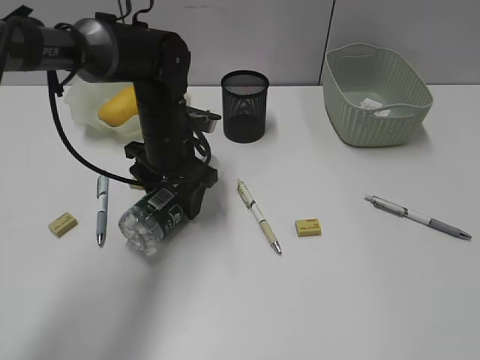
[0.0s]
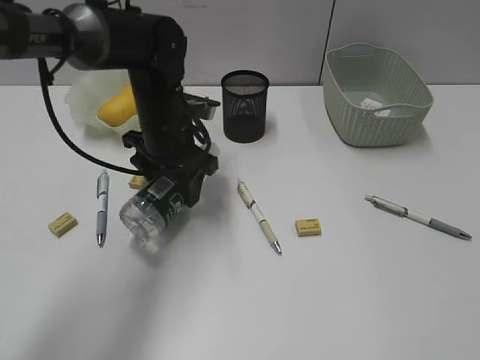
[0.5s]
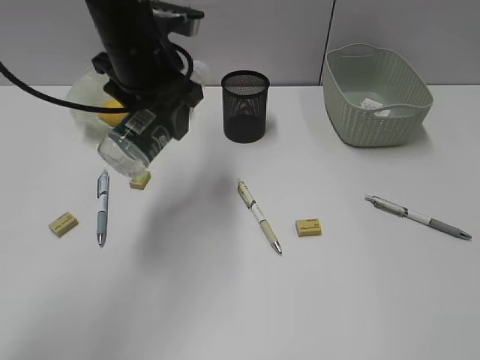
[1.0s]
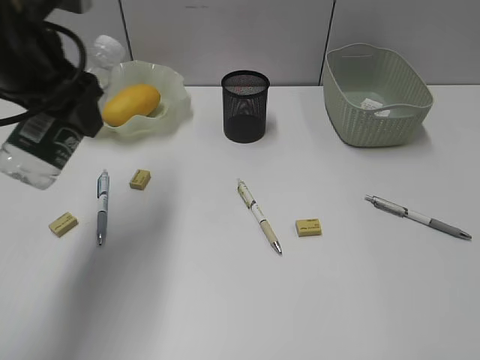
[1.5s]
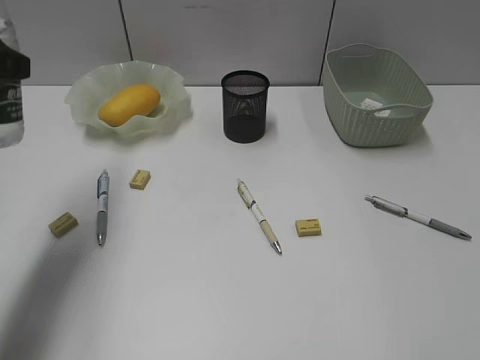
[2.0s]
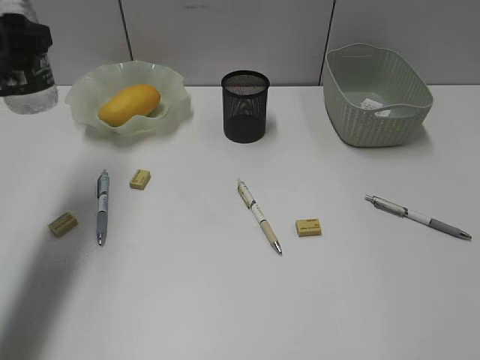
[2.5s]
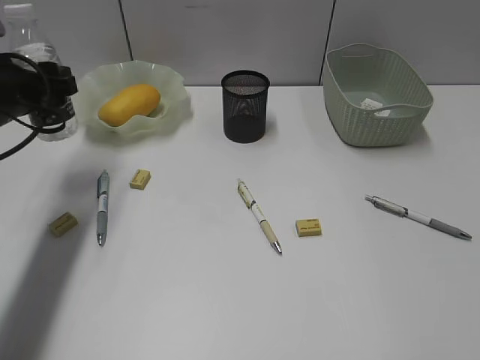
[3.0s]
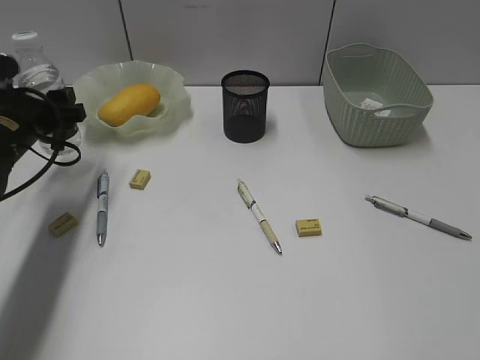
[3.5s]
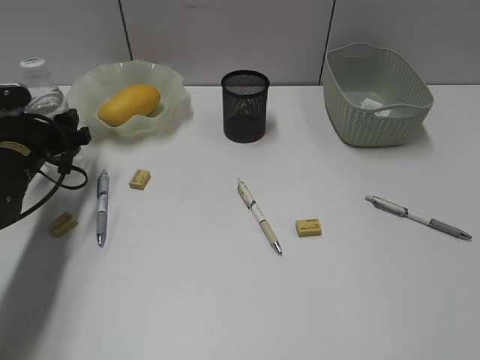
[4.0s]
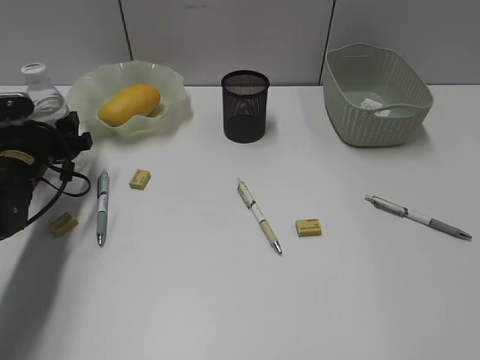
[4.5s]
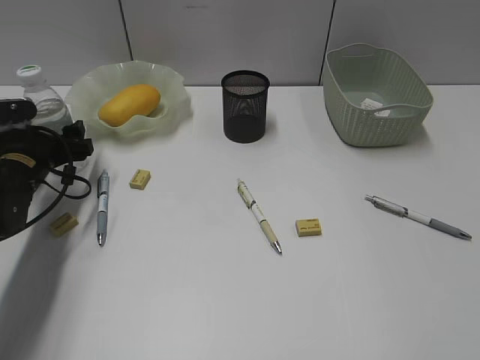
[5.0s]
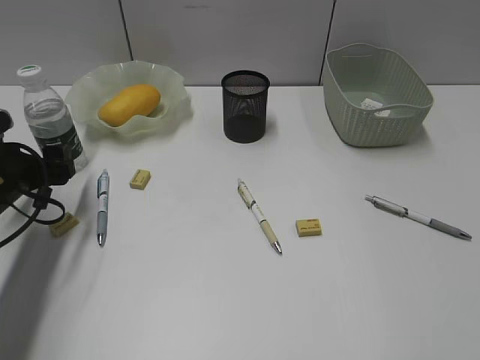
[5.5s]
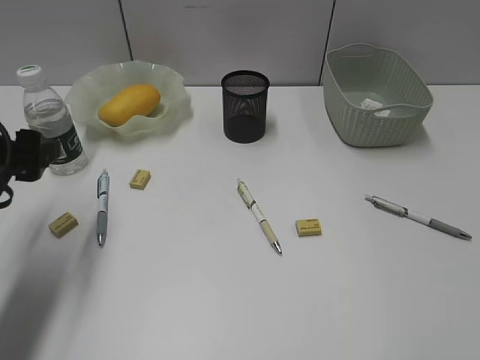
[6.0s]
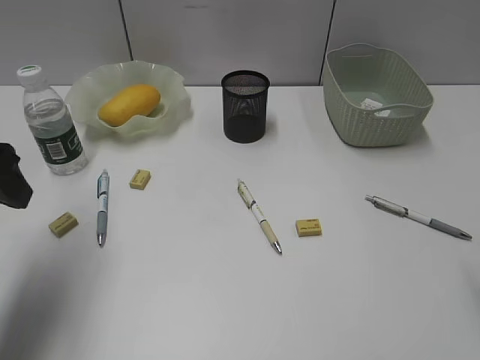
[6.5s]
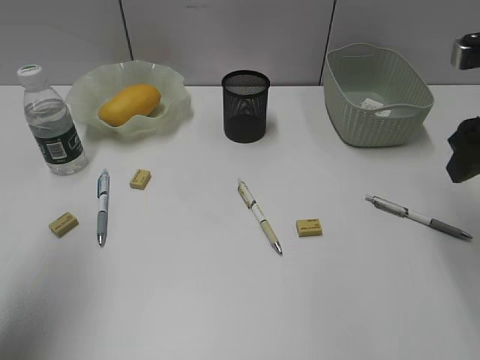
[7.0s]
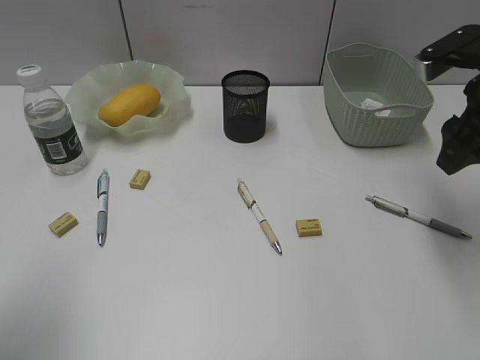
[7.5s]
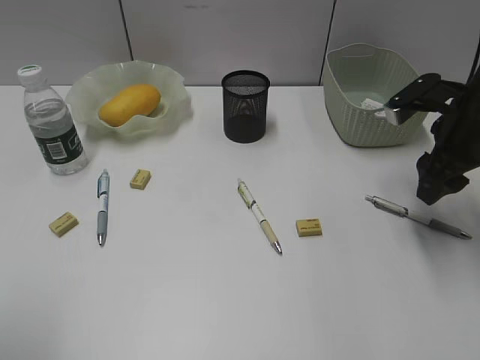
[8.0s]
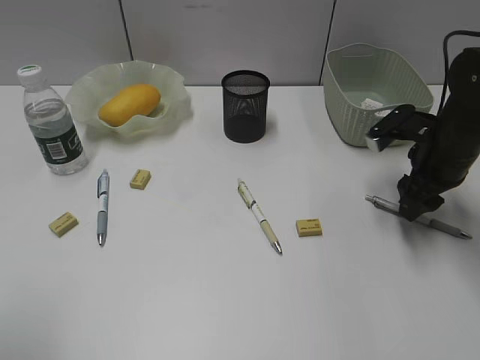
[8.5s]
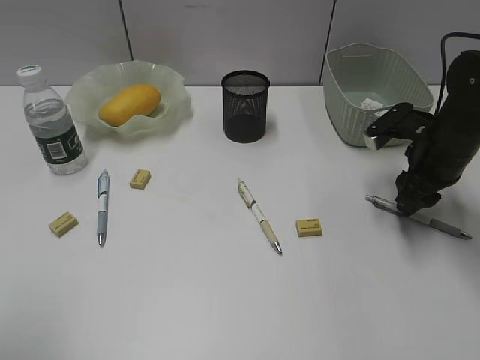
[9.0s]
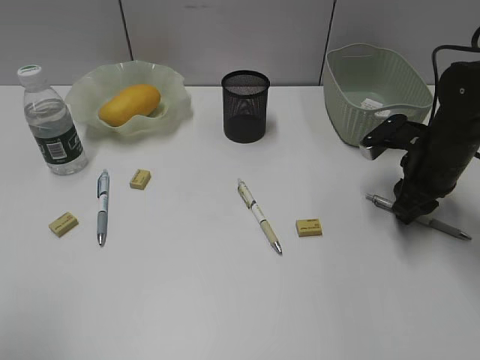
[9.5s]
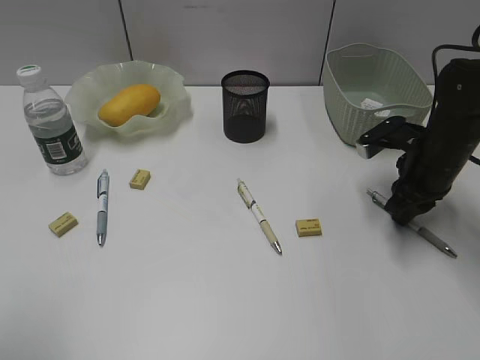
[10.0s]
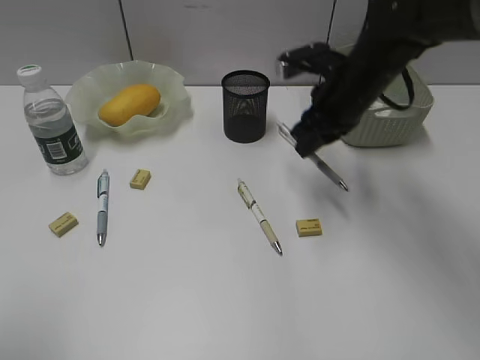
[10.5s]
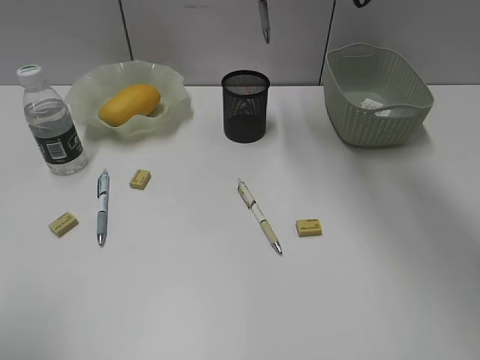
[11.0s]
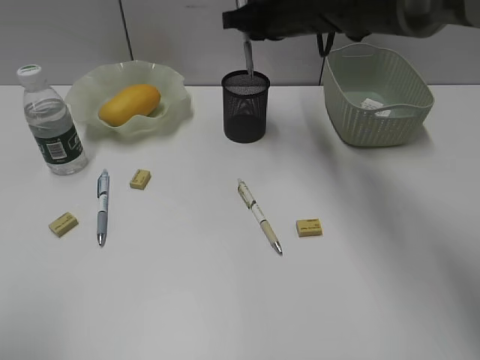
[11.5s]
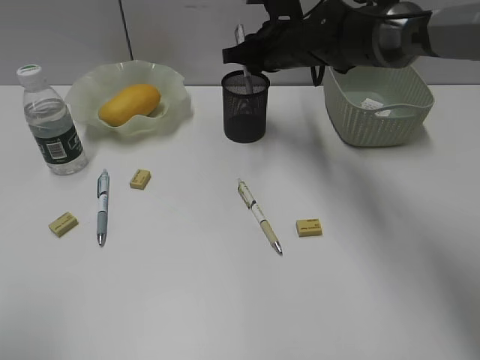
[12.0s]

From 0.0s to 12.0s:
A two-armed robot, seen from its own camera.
Step, from 0.5s to 5.0s: Stand the bottle with left gripper.
Step, from 5.5s to 9.5s: Grasp the gray pen with right gripper.
From 0.0s to 2.0s: The left gripper goes some 30 cm to the left, upward and backward.
From 2.0s to 4.0s: The left gripper travels downward and forward by some 20 cm.
From 4.0s to 6.0s: The left gripper goes some 15 cm backward and upward.
From 6.0s to 8.0s: The right gripper goes approximately 35 cm forward; the left gripper moves backward and upward, some 20 cm.
From 8.0s to 10.0s: The right gripper is displaced downward by about 5 cm, and closes its fingers.
From 10.0s to 12.0s: The right gripper shifts about 20 cm to the left, forward and upward.

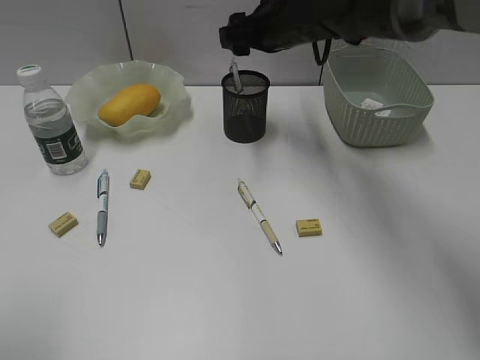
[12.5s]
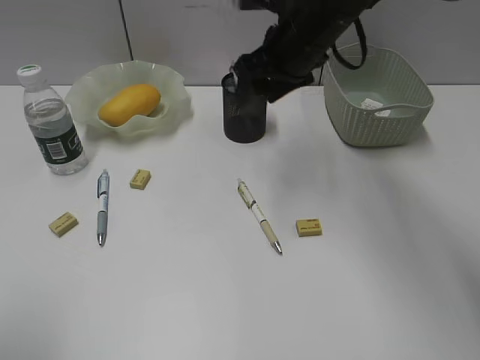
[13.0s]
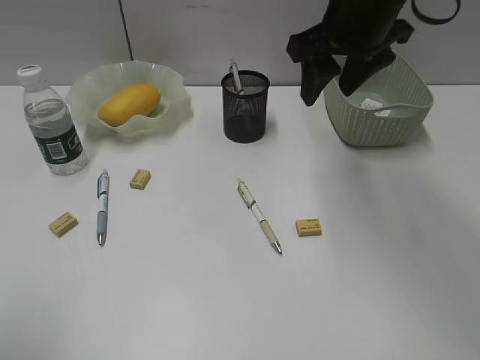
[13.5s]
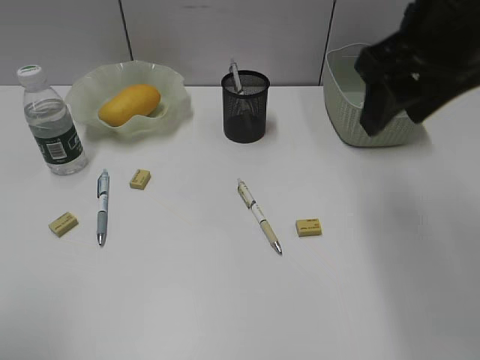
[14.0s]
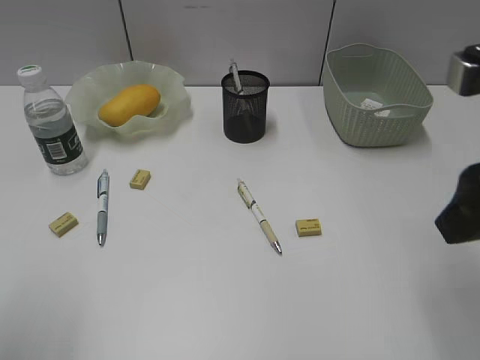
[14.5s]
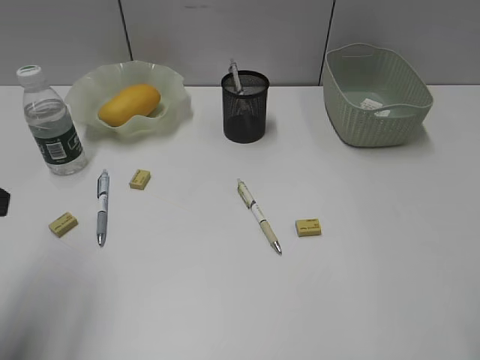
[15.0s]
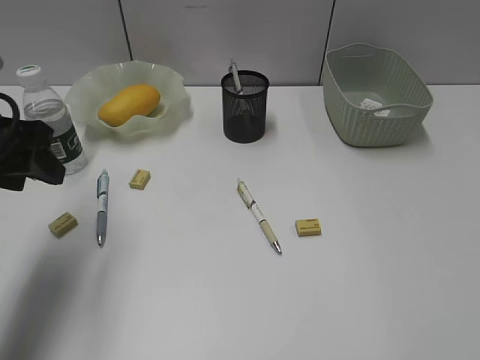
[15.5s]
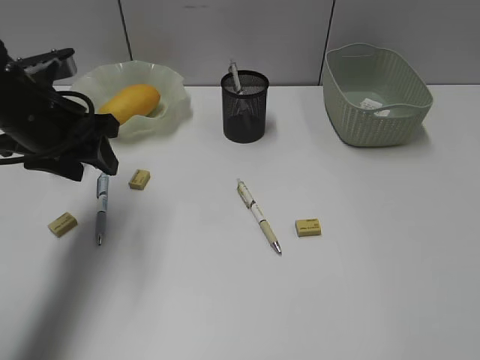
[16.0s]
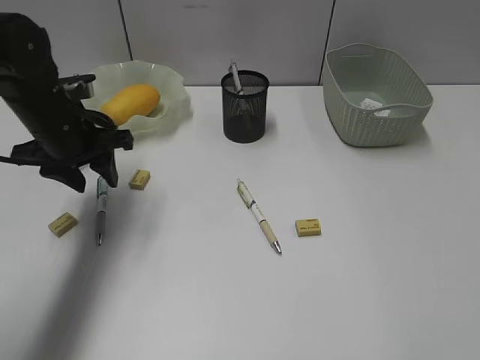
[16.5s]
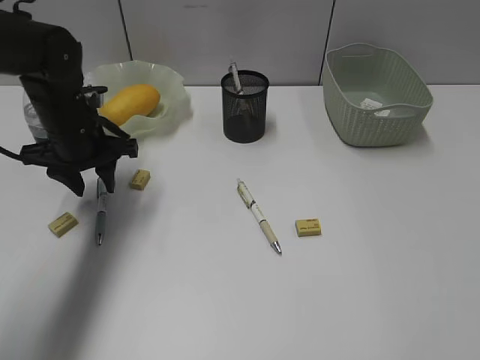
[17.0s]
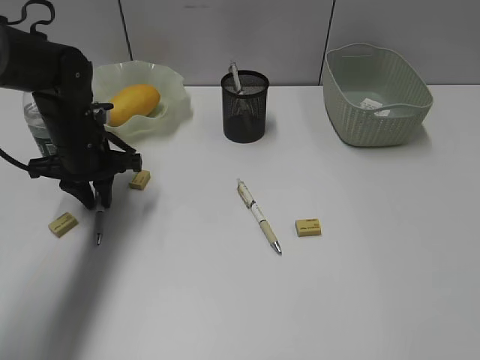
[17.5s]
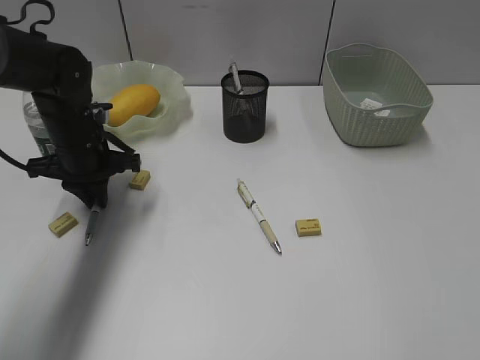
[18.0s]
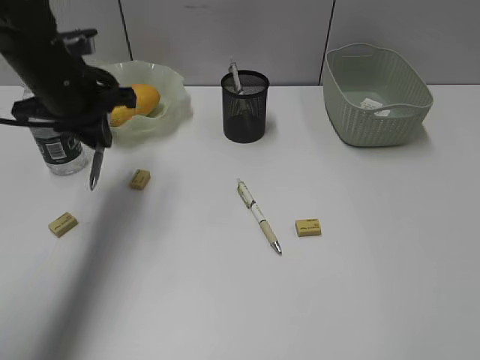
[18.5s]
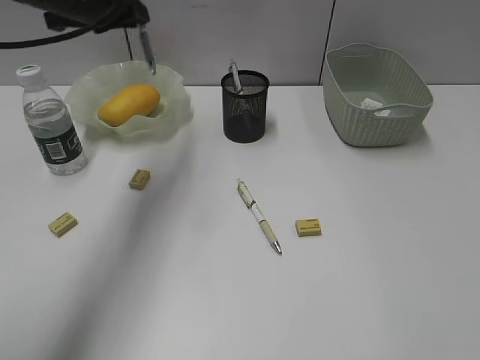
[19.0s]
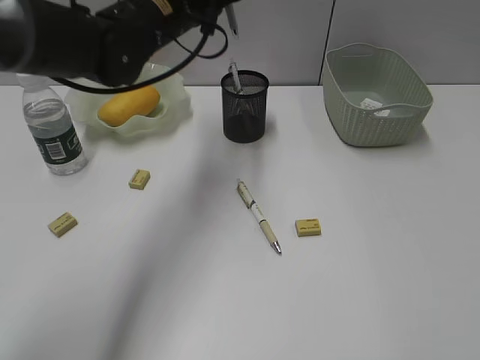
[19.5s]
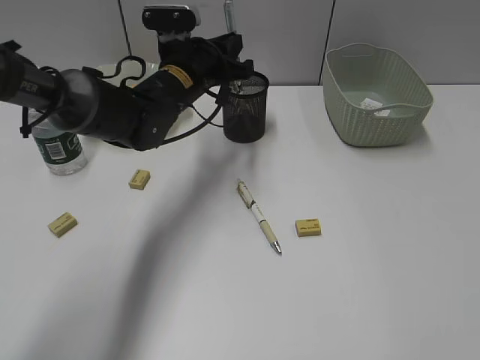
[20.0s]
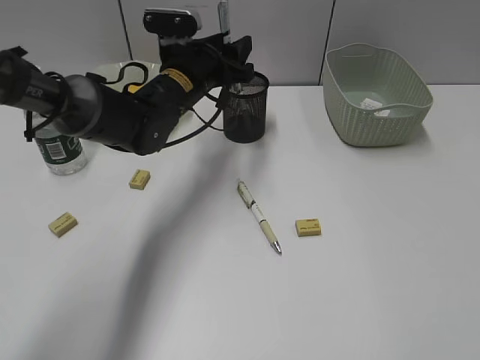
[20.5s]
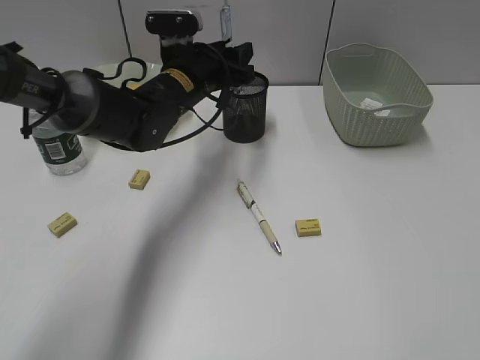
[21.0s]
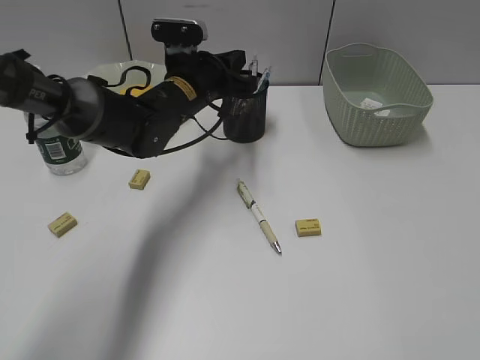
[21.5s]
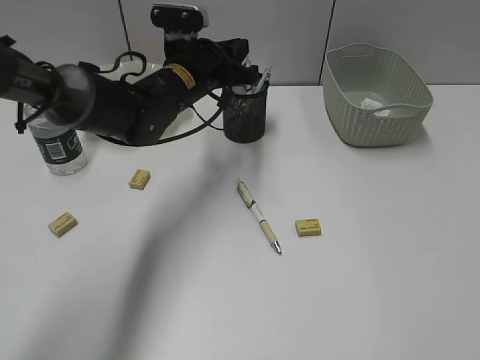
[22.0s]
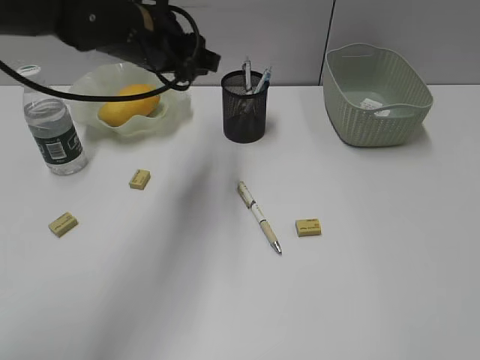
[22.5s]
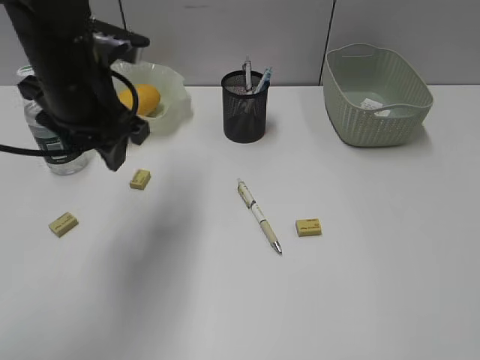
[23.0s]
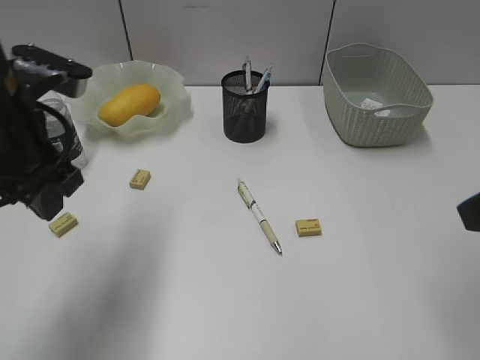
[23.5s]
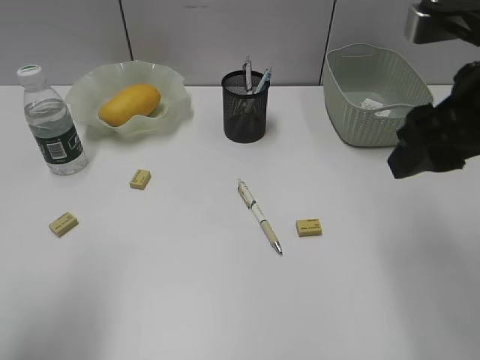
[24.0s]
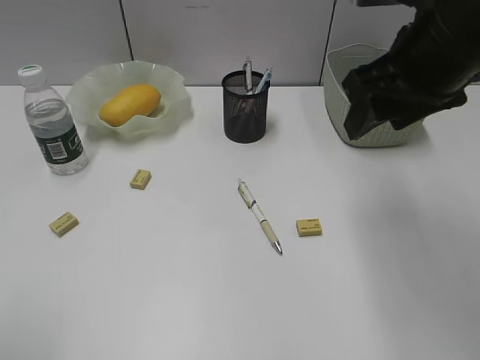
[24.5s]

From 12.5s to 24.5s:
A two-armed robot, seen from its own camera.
Step, from 12.5s to 18.0s: Grasp the blue pen with left gripper.
Step, from 18.5s to 21.5s: Place the blue pen in pen holder with left gripper.
From 12.5s to 14.5s: The right gripper goes some 35 cm backward and to the right.
From 14.5s to 16.5s: The left gripper travels forward and downward by about 30 cm; the right gripper heads backward and to the right, covering approximately 15 cm.
From 16.5s to 18.5s: The left gripper is displaced upward by some 5 cm, and closes.
From 18.5s to 20.5s: The left gripper moves to the right and downward, approximately 15 cm, and opens.
From 20.5s to 22.5s: The left gripper goes about 10 cm upward, and closes, then opens again.
From 22.5s to 24.5s: The left gripper shifts some 40 cm backward and to the left. Meanwhile the right gripper travels forward and to the left by about 25 cm.

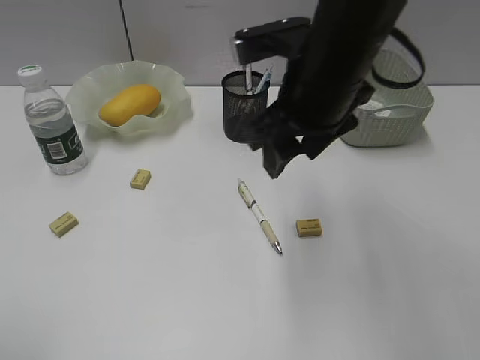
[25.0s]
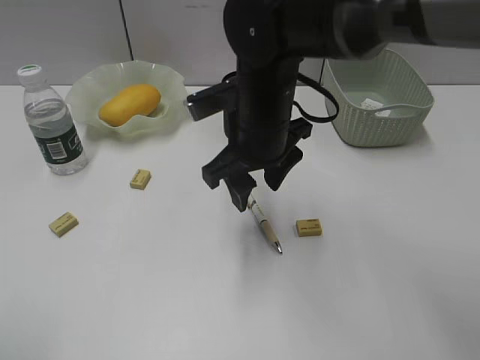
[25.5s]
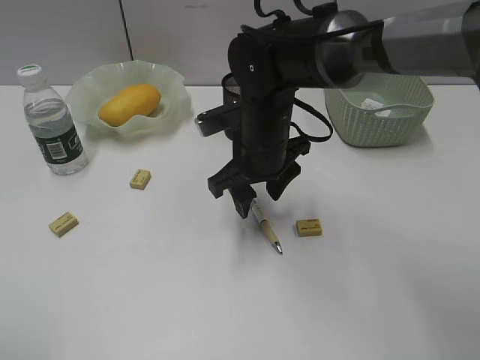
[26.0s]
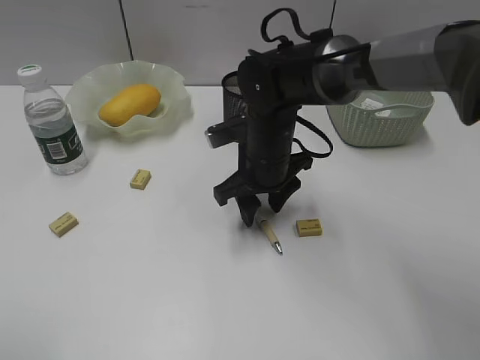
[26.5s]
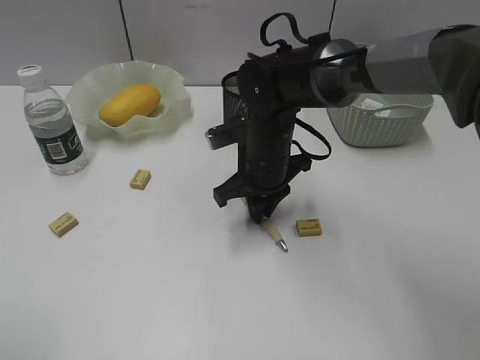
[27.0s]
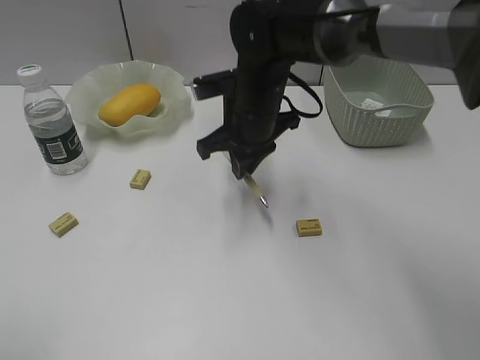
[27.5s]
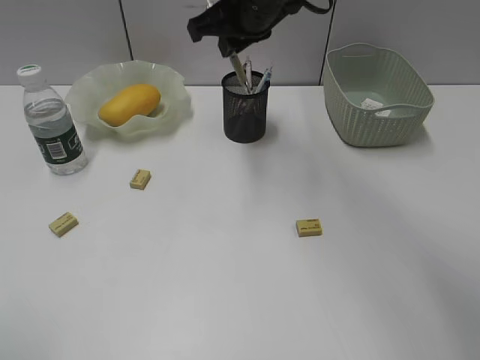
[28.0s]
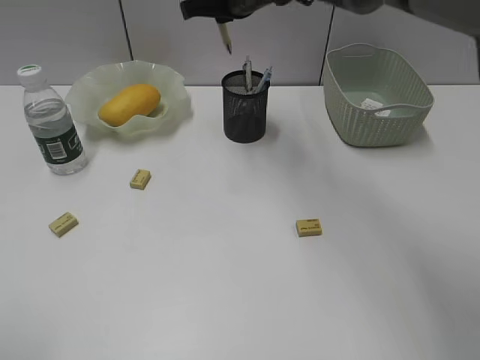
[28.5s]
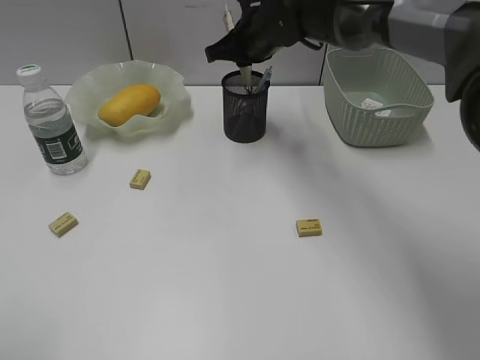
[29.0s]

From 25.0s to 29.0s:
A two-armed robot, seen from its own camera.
Step, from 25.0s to 27.0s: Grasp the yellow pen with right gripper.
From 25.0s to 27.0s: The right gripper goes roughly 15 cm downward and forward, and closes its fingers.
From 27.0s to 29.0s: The right gripper is displaced forward and upward by some 15 cm.
